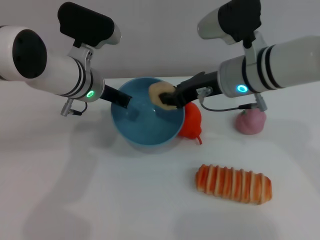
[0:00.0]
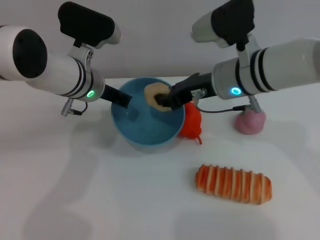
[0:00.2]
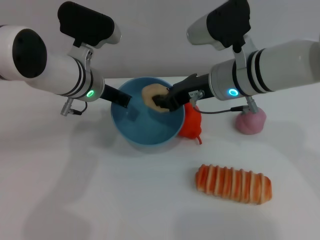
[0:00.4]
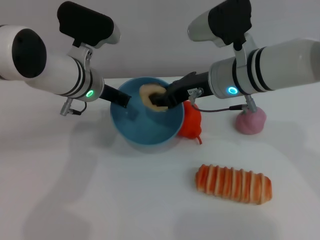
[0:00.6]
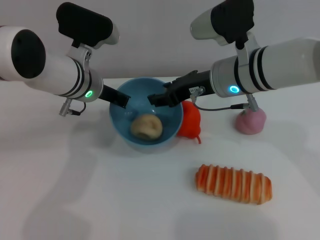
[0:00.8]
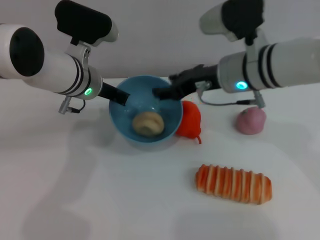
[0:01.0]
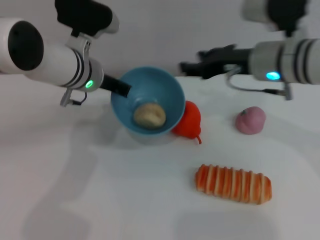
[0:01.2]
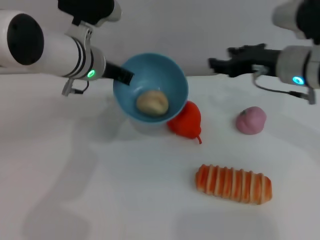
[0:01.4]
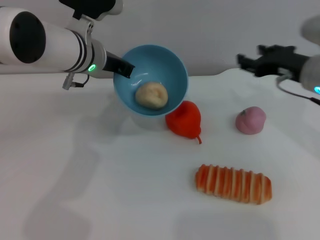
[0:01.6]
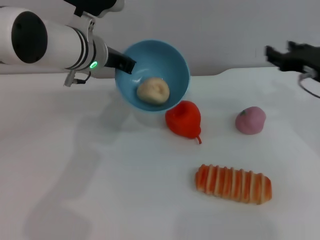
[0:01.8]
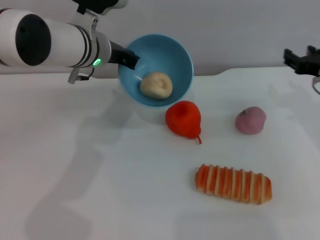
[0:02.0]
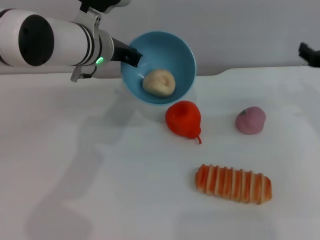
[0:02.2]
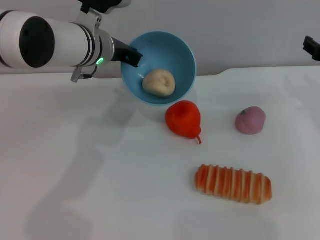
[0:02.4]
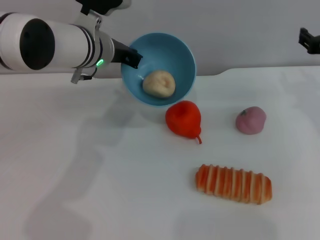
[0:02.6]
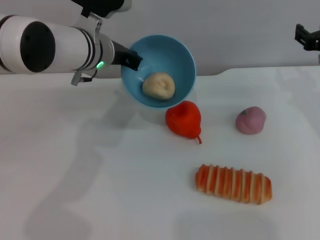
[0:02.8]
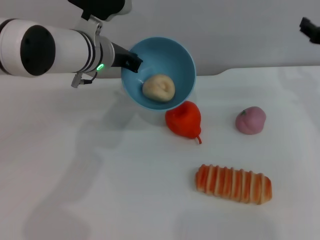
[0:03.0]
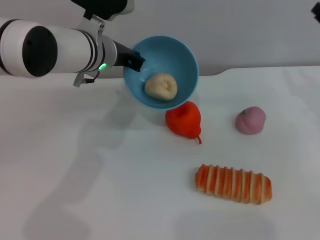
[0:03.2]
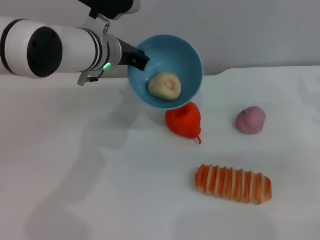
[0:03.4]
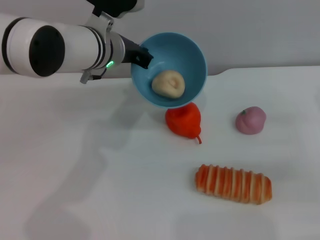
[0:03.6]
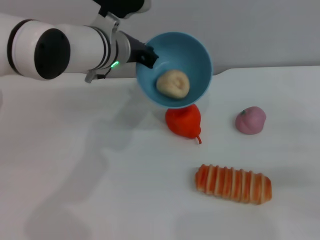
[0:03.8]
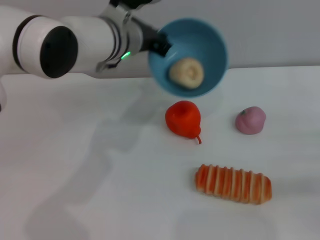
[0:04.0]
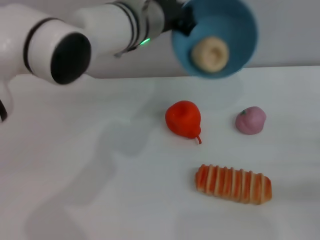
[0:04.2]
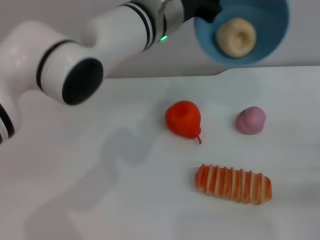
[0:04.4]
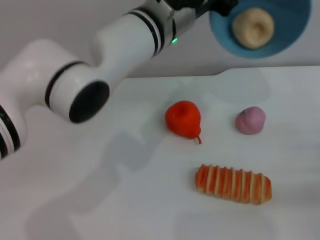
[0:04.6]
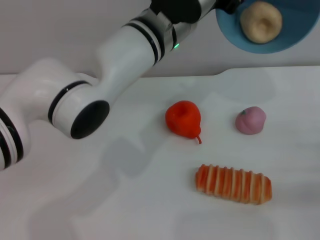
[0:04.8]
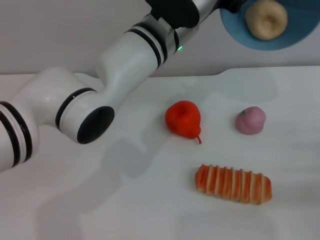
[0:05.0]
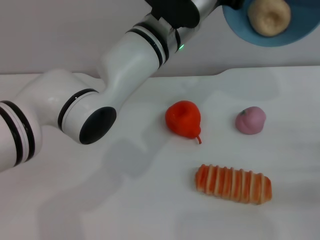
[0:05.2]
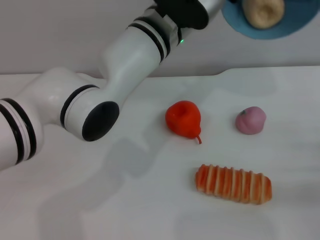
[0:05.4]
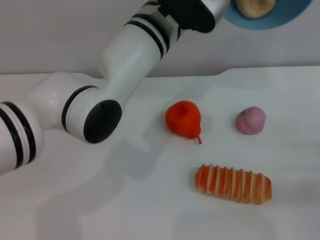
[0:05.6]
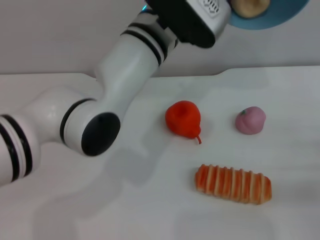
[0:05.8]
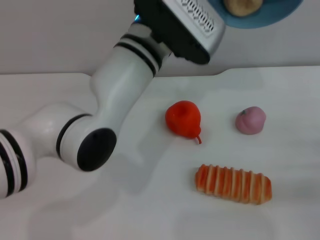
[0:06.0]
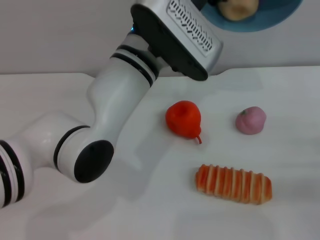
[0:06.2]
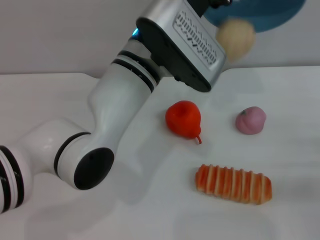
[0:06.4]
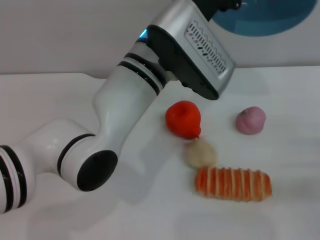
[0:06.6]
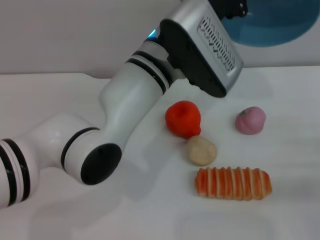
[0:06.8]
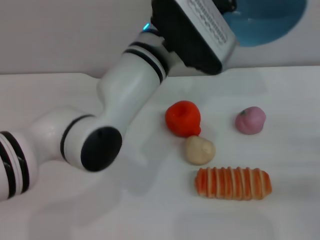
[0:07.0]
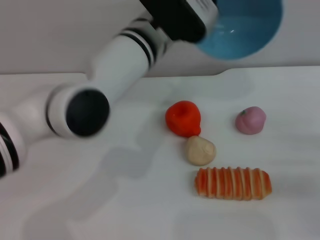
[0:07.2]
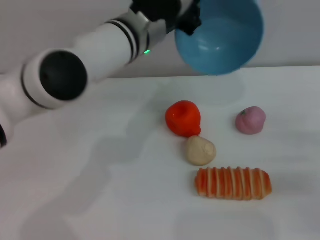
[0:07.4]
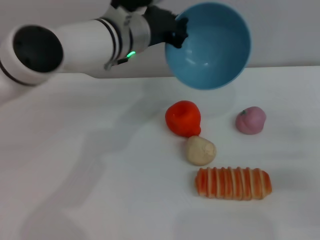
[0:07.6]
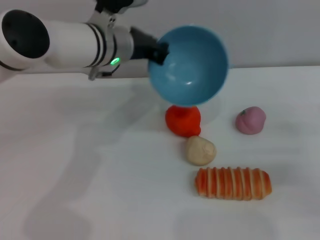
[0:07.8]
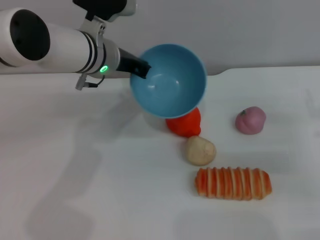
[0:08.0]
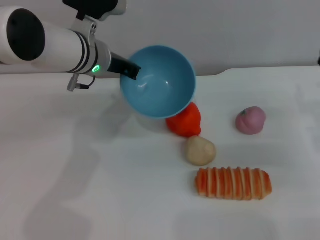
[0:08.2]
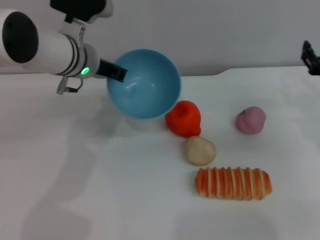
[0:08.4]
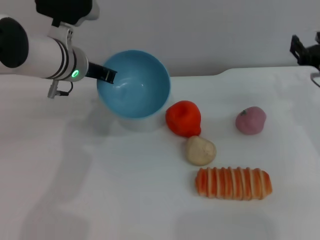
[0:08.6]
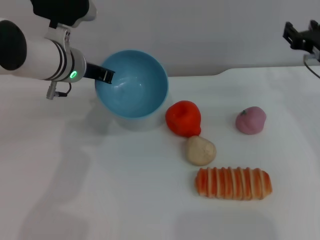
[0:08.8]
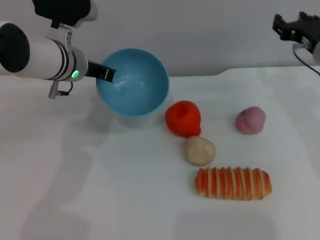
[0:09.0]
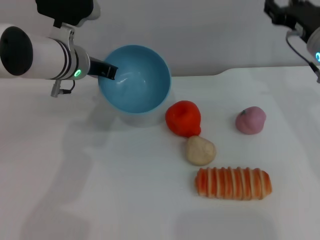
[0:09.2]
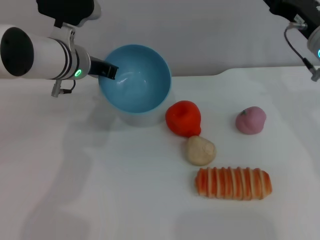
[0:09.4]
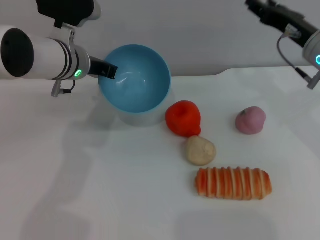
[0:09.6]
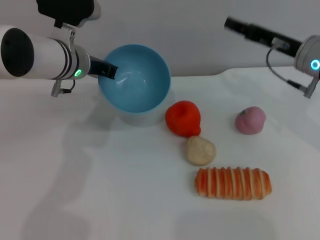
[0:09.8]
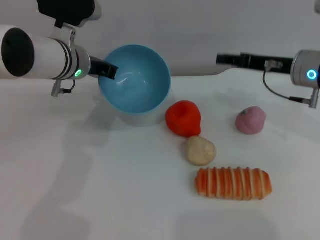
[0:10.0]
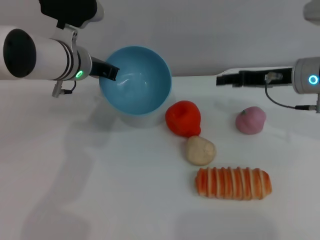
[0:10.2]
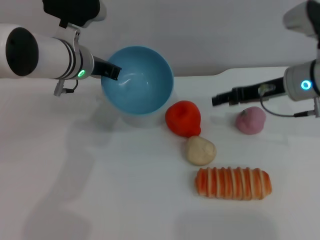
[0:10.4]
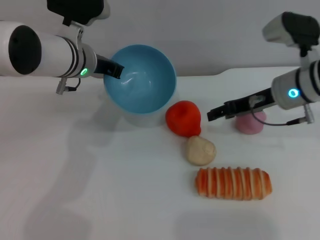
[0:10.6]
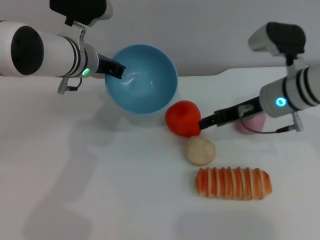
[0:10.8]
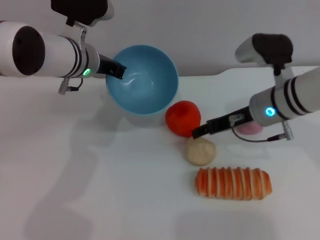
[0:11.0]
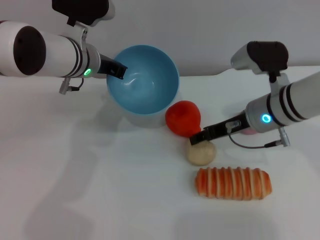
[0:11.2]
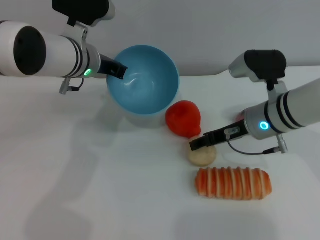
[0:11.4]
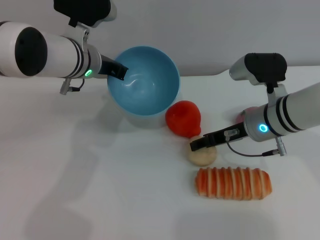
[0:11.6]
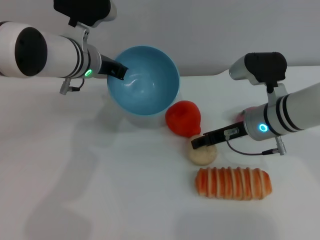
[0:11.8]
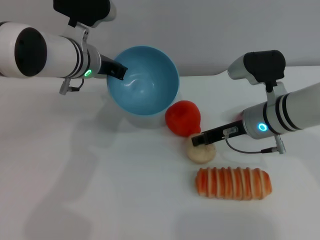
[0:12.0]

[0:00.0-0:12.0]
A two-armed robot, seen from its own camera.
Task of the whole recording: put the egg yolk pastry into the blue bowl and pour it out repeatedly.
Step, 0:00.0 to 0:01.4: Place the egg yolk pastry into the bowl.
Step, 0:01.8 to 0:07.0: Pour the egg yolk pastry out of bowl.
0:00.0 to 0:01.6: The right gripper is displaced to the right by approximately 10 cm, and opens.
0:01.6 to 0:03.0: The right gripper heads to the right, covering roughly 5 cm.
0:03.0 to 0:04.4: The right gripper goes some 20 cm backward, downward and to the right; the left gripper goes roughly 10 cm to the right and upward.
0:06.0 to 0:07.6: The left gripper moves forward and to the left, about 5 cm.
0:07.6 to 0:09.0: The right gripper moves forward, to the left and upward, about 20 cm. Meanwhile the left gripper moves to the left, approximately 10 cm.
0:10.4 to 0:12.0: The right gripper travels to the left and downward by some 10 cm.

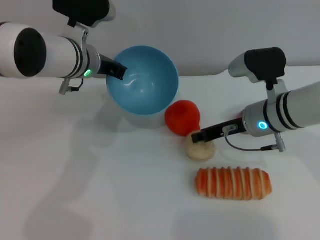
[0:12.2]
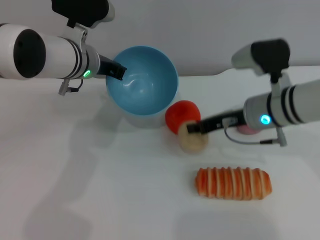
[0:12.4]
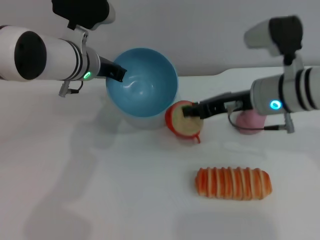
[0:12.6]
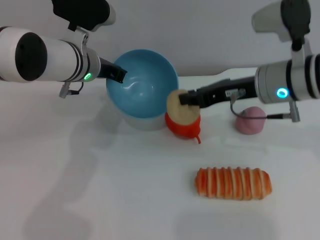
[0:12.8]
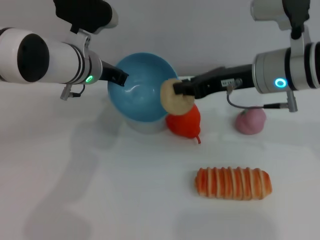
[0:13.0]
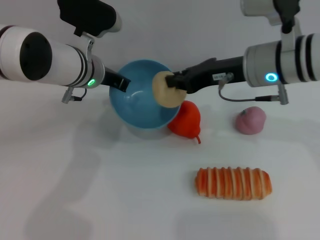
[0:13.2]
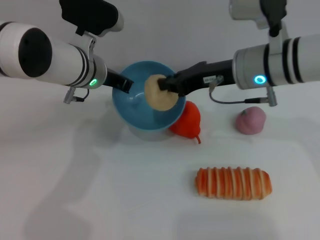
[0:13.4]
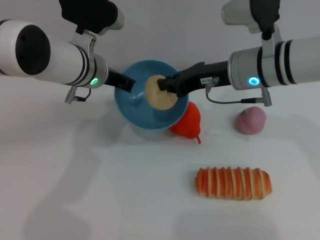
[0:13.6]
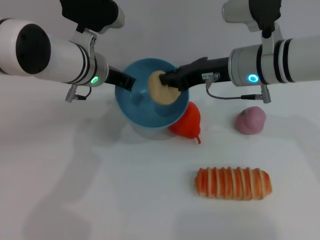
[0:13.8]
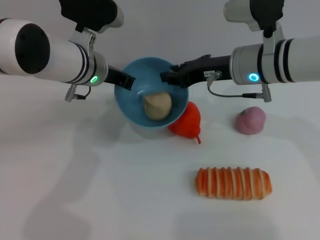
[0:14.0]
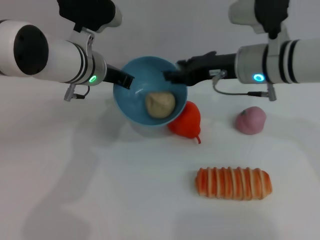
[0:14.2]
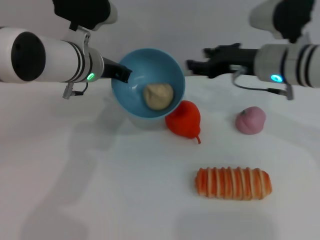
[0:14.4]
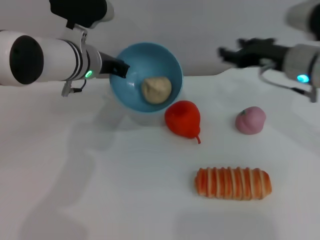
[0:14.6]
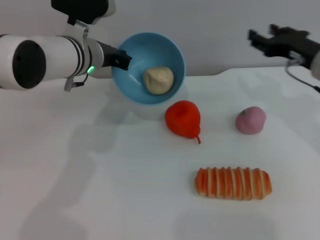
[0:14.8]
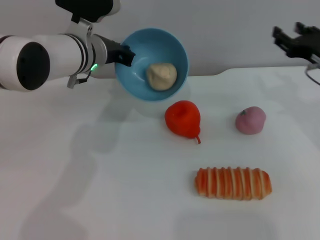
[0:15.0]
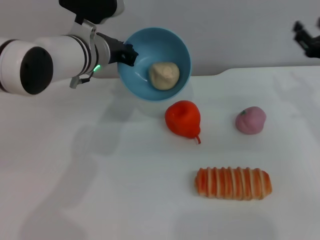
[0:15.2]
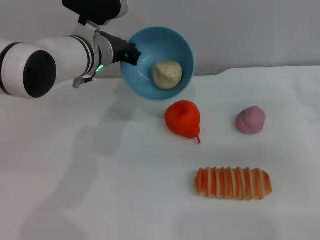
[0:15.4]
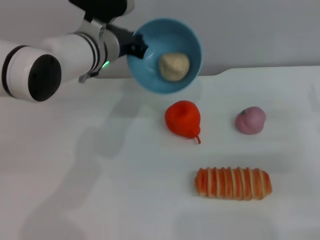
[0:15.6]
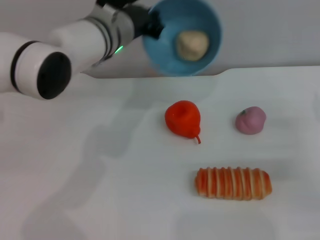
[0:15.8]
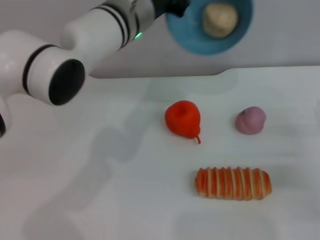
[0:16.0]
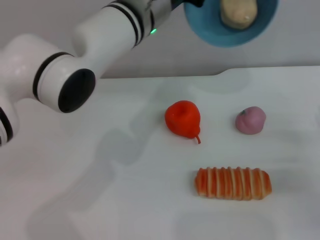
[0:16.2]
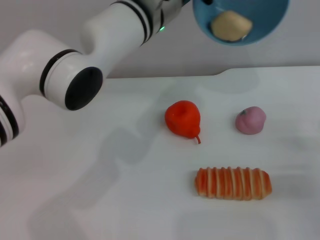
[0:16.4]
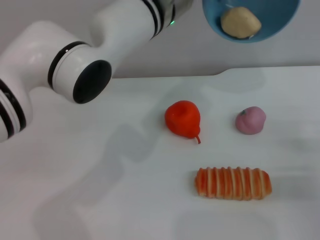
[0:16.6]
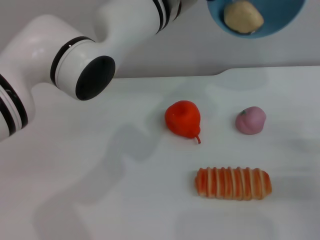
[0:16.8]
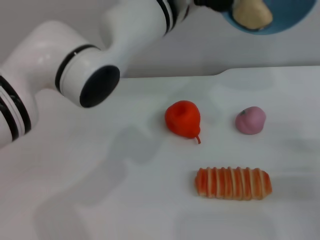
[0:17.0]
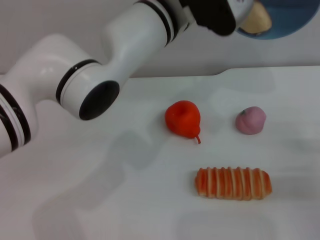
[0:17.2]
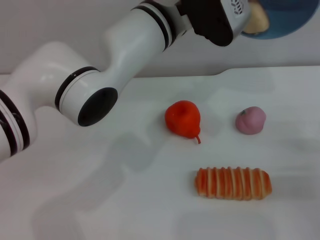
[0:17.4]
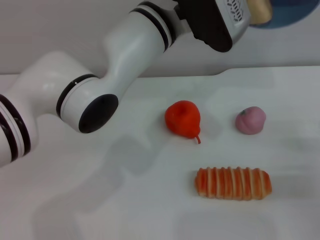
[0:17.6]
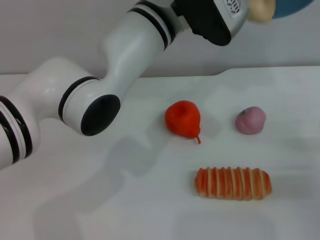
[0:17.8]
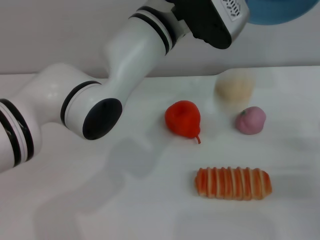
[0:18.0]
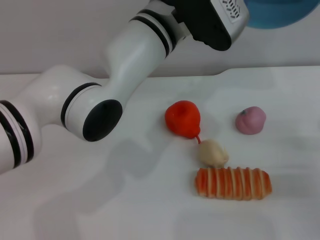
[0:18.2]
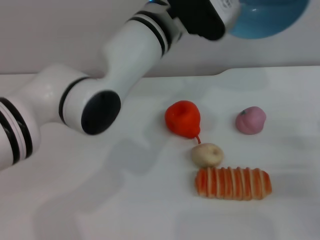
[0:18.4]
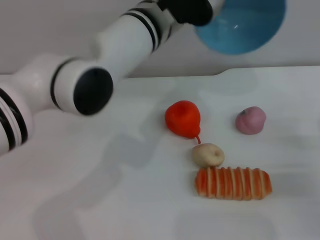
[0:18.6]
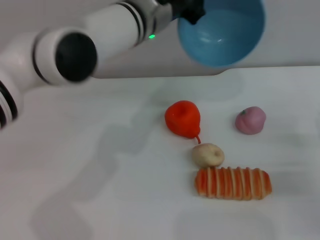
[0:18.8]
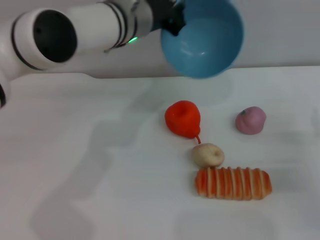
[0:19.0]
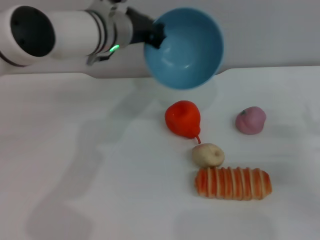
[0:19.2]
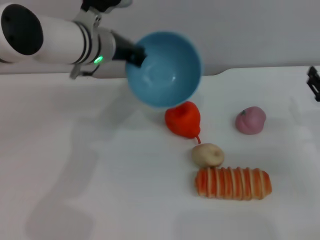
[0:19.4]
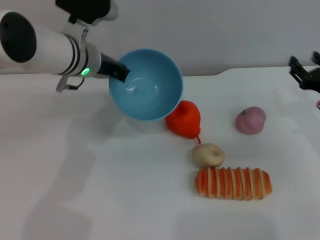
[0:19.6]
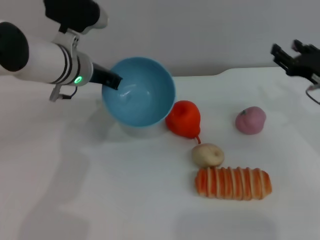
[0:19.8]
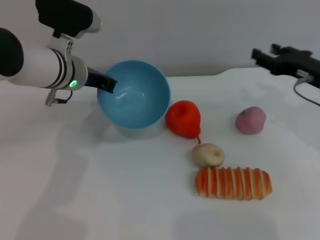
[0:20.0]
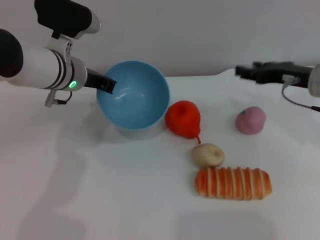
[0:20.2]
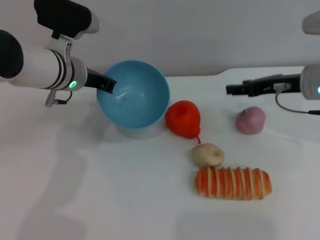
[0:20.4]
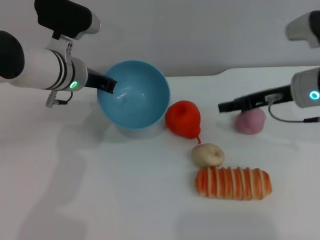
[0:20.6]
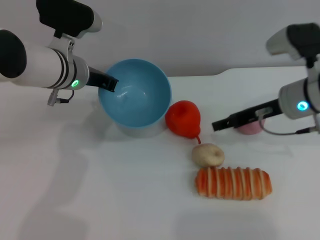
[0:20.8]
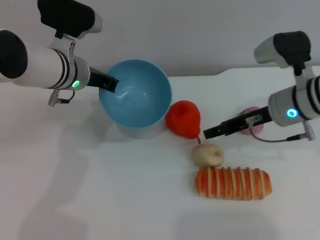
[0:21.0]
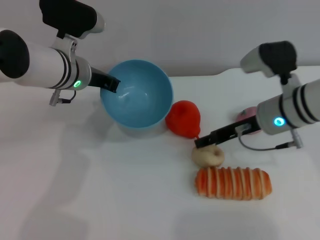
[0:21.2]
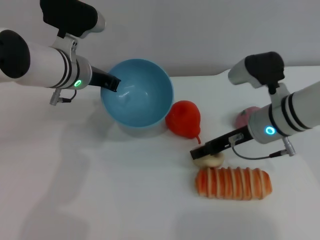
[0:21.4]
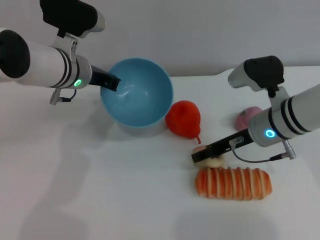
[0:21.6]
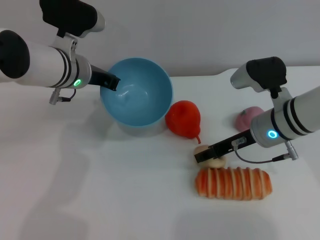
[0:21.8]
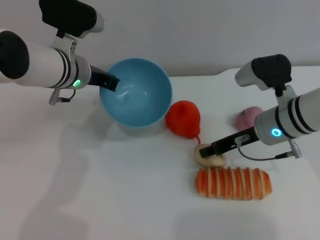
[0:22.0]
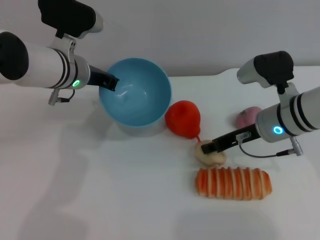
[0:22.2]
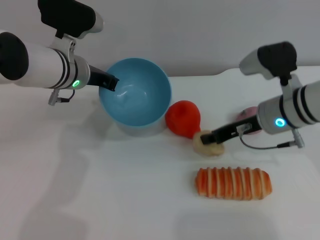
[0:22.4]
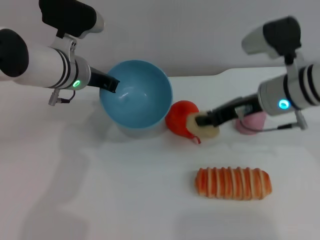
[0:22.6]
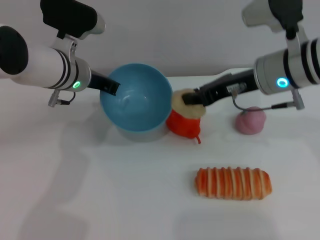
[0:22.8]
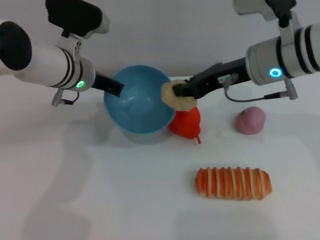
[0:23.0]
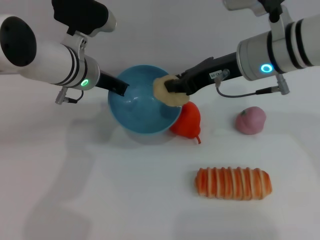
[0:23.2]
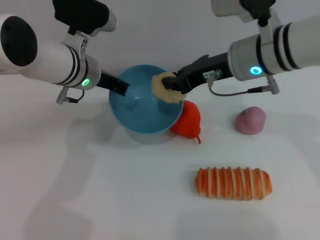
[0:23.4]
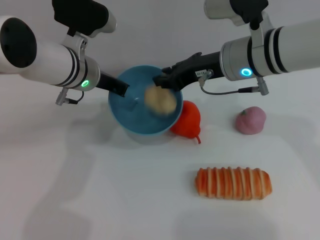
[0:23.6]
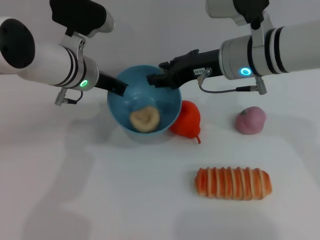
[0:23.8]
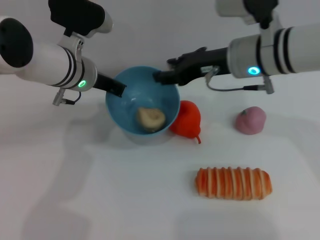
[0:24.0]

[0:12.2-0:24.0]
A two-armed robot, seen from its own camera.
Task of the whole recording: put the egg yolk pastry into the blue bowl and pour it out repeatedly.
Step, 0:12.8 to 0:14.2: Place the egg yolk pastry into the bowl.
Step, 0:14.4 to 0:18.6: Pour the egg yolk pastry out of bowl.
Step, 0:18.8 to 0:22.6: Pick up the egg yolk pastry with the right gripper.
Step, 0:23.0 to 0:23.8: Place the egg yolk pastry into the bowl.
0:12.2 to 0:13.6: The right gripper moves upward, roughly 10 cm.
0:13.6 to 0:15.2: The right gripper shifts some 15 cm to the right, and opens.
0:15.2 to 0:16.6: The left gripper heads to the right and upward, covering approximately 15 cm, while the right gripper shifts about 15 cm backward and downward.
0:18.2 to 0:19.6: The left gripper goes approximately 15 cm to the left and downward; the right gripper travels forward by approximately 5 cm.
0:19.6 to 0:21.0: The right gripper moves to the left, approximately 10 cm.
0:21.0 to 0:22.6: The right gripper closes.
0:22.6 to 0:24.0: The right gripper moves approximately 5 cm, and opens up.
